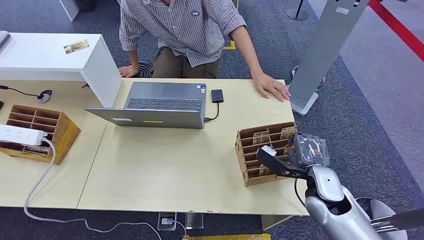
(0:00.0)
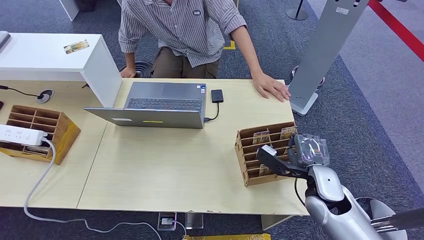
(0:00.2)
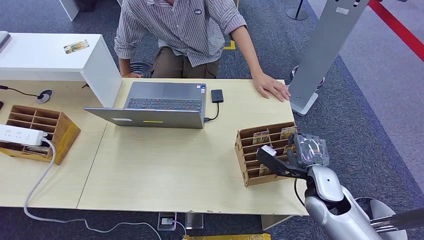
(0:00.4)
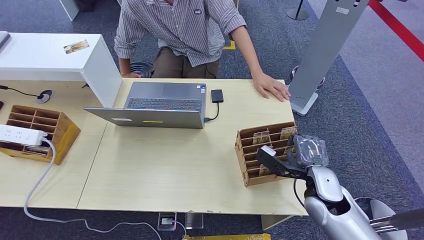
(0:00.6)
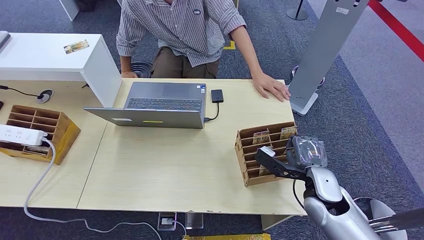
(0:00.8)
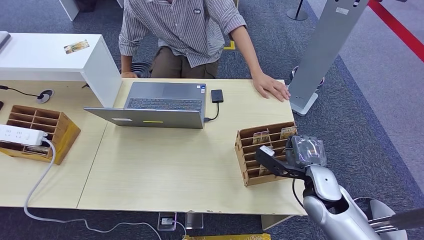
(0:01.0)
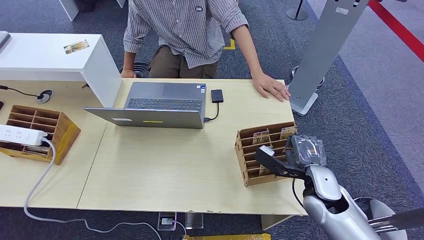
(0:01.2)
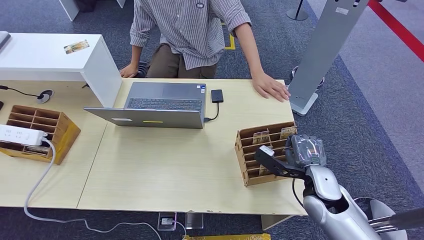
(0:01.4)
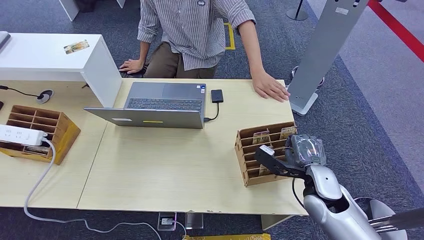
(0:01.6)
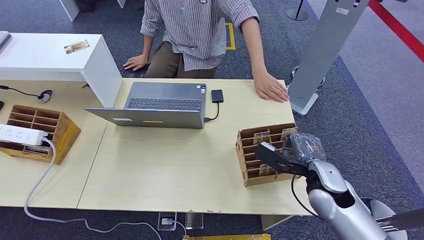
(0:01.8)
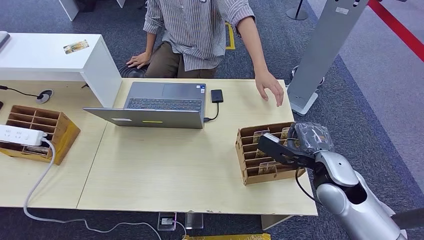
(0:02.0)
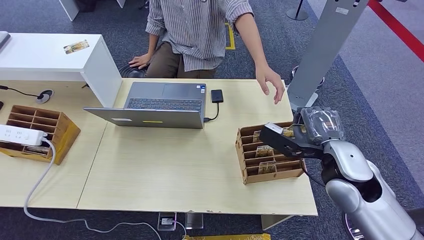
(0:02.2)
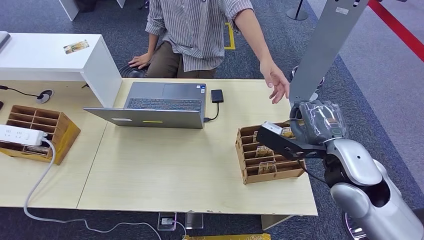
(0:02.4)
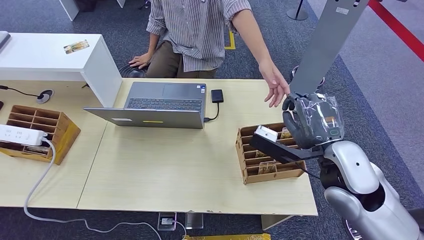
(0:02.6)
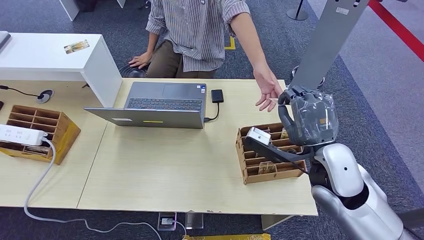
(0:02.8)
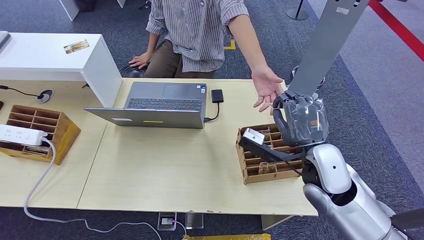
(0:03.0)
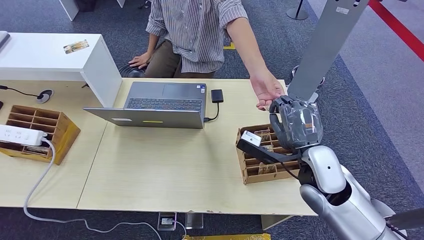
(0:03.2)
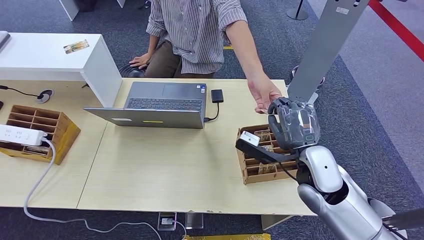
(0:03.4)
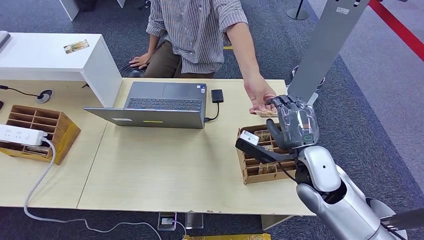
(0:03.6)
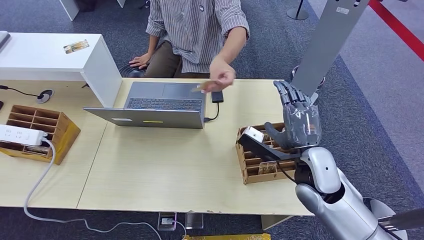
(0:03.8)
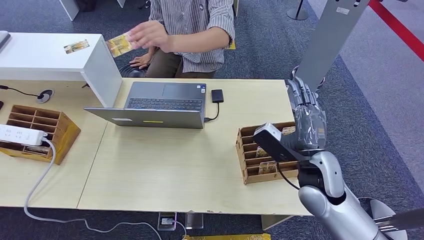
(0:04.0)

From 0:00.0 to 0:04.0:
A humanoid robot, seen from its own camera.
Step, from 0:00.0 to 0:02.0: Pick up the key card from the card box.
Step, from 0:02.8 to 0:04.0: Hand the key card to the target.
From 0:01.4 to 0:02.6: The right hand heads upward, covering some 15 cm.
From 0:02.6 to 0:04.0: The right hand goes roughly 5 cm downward.
